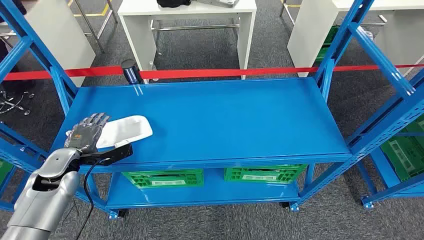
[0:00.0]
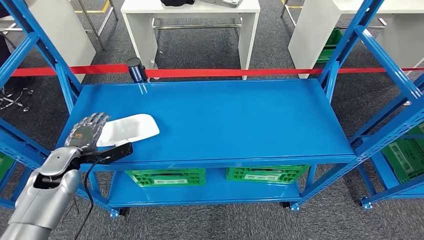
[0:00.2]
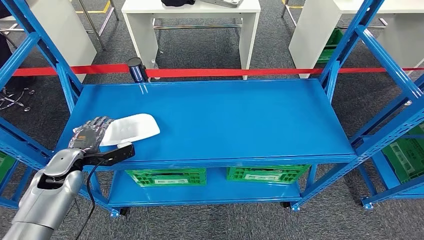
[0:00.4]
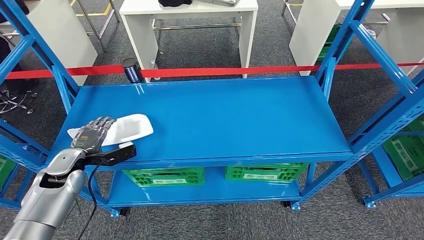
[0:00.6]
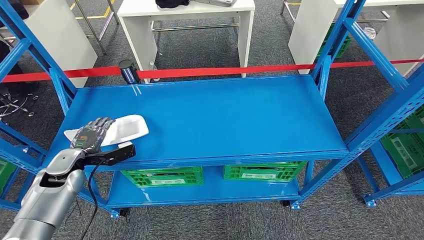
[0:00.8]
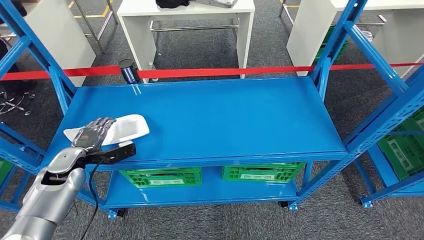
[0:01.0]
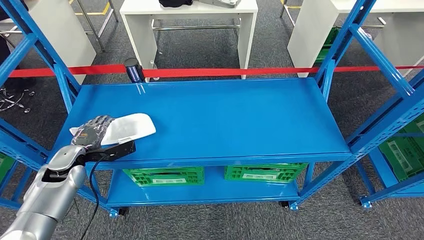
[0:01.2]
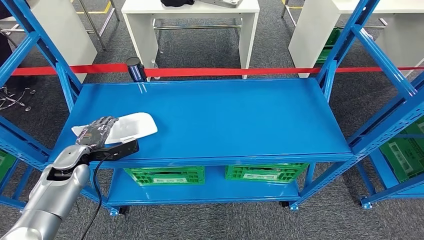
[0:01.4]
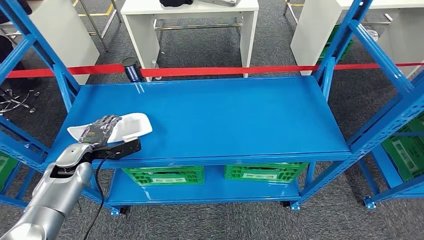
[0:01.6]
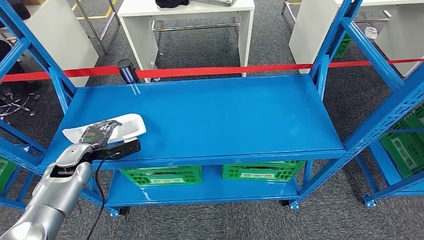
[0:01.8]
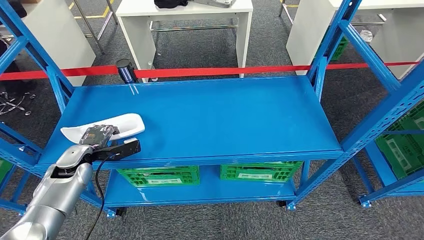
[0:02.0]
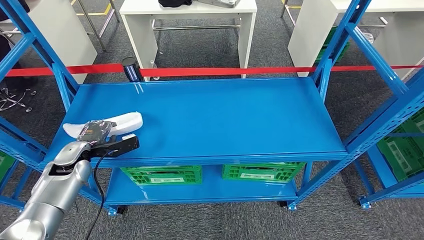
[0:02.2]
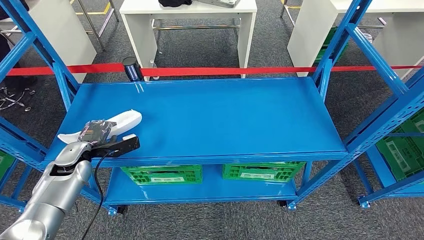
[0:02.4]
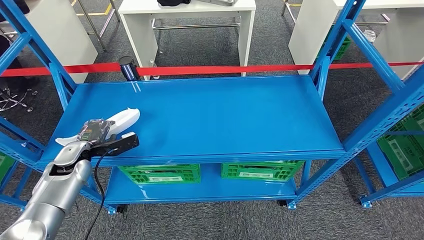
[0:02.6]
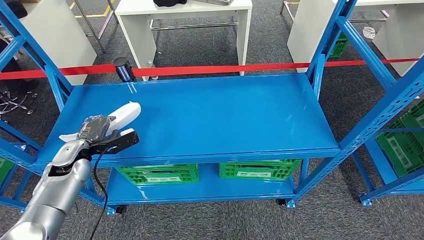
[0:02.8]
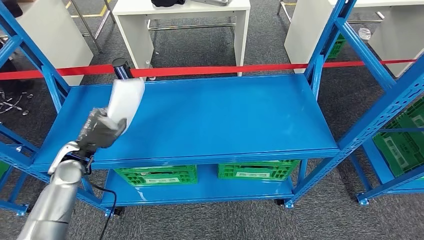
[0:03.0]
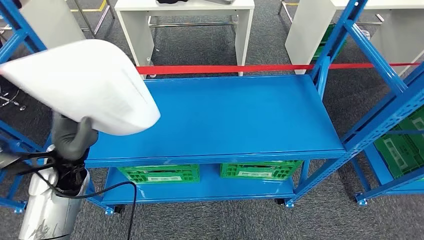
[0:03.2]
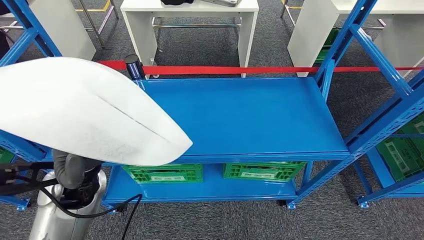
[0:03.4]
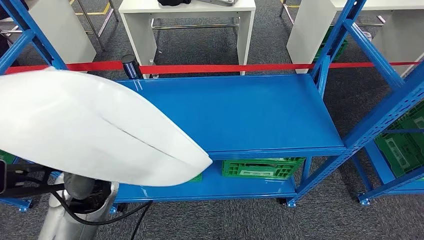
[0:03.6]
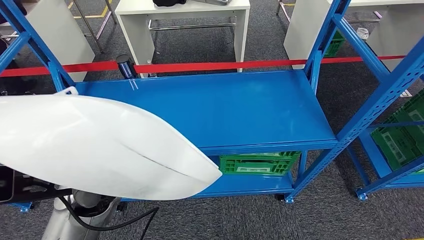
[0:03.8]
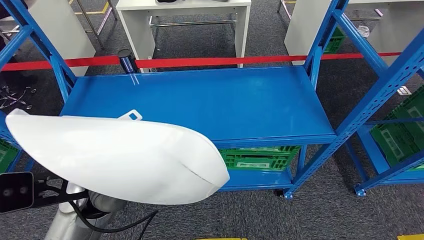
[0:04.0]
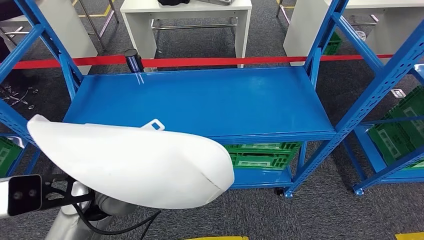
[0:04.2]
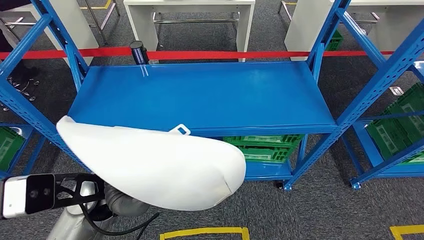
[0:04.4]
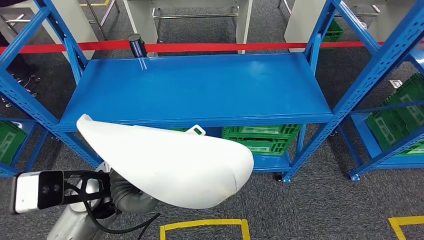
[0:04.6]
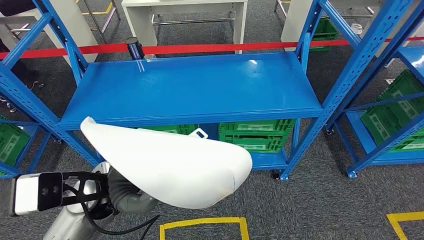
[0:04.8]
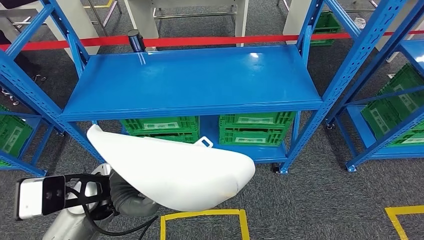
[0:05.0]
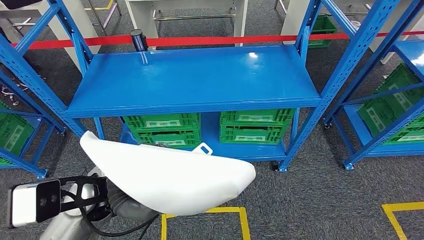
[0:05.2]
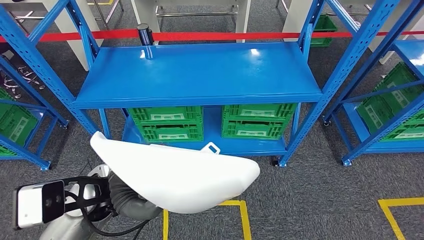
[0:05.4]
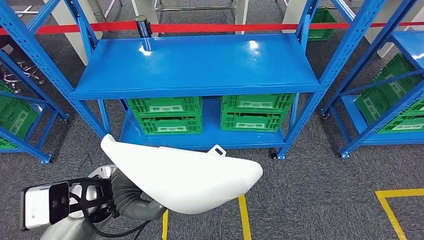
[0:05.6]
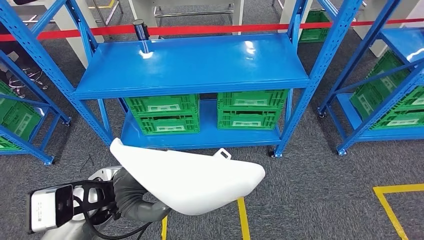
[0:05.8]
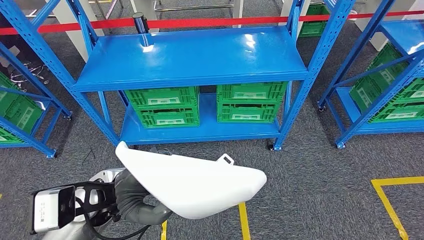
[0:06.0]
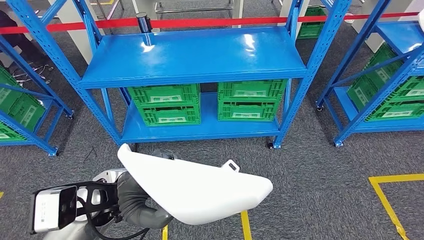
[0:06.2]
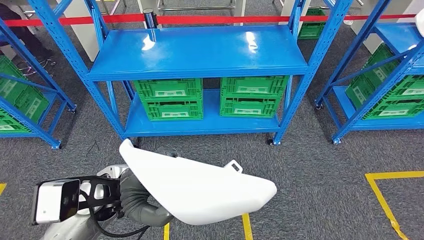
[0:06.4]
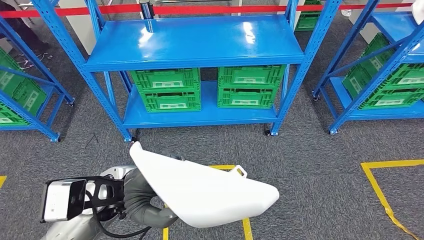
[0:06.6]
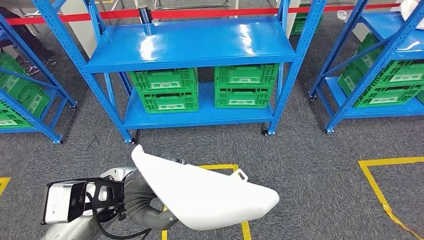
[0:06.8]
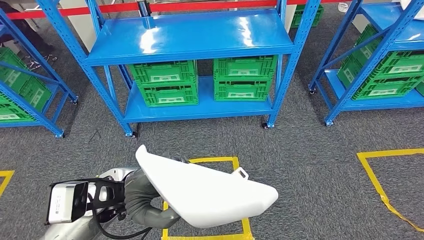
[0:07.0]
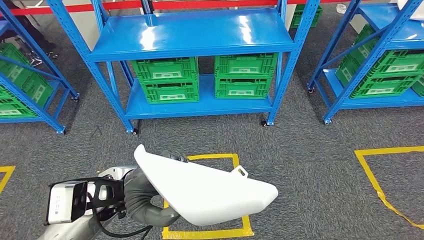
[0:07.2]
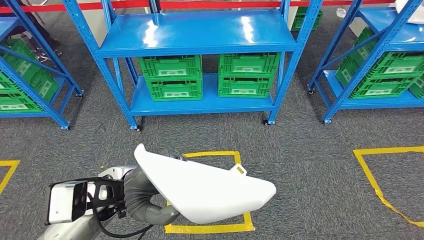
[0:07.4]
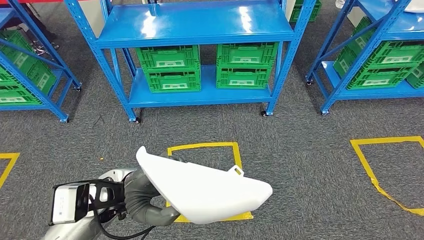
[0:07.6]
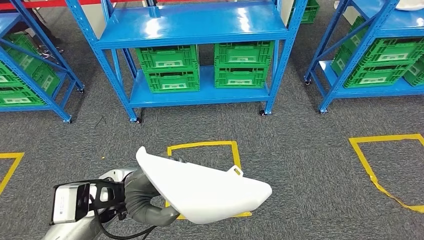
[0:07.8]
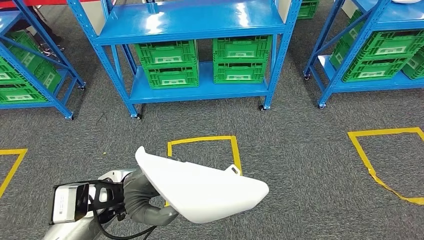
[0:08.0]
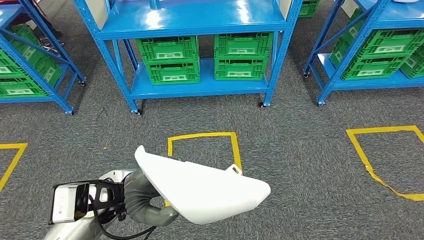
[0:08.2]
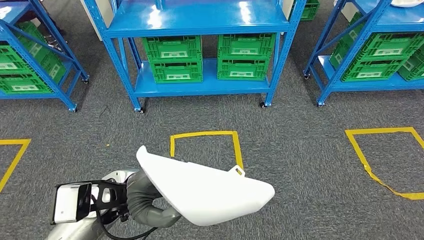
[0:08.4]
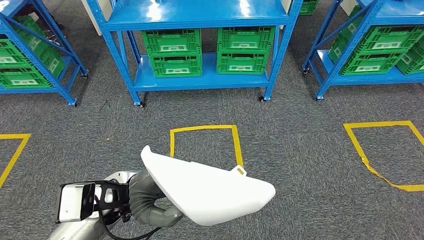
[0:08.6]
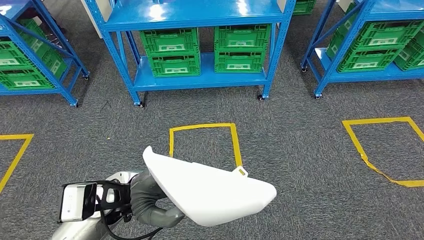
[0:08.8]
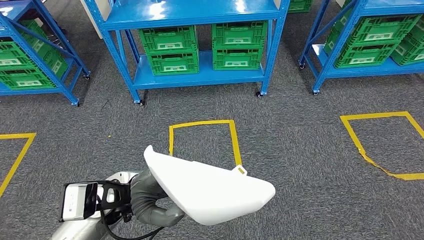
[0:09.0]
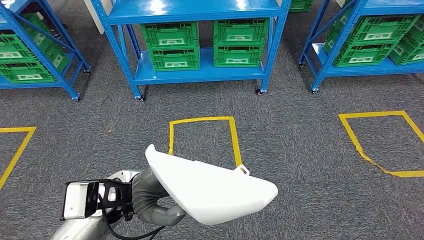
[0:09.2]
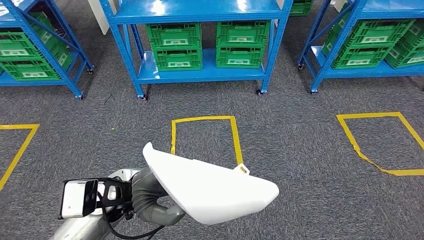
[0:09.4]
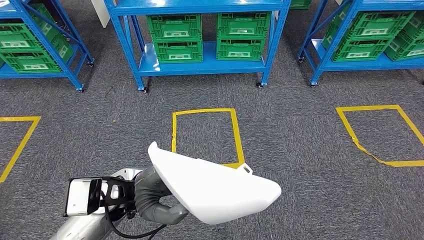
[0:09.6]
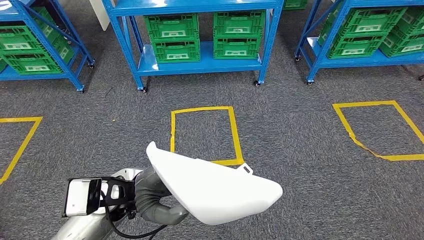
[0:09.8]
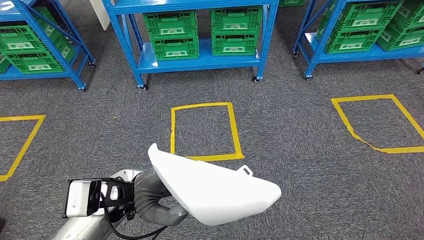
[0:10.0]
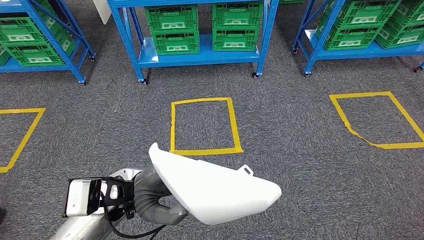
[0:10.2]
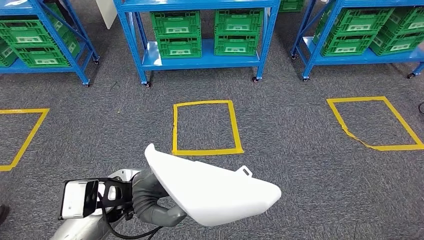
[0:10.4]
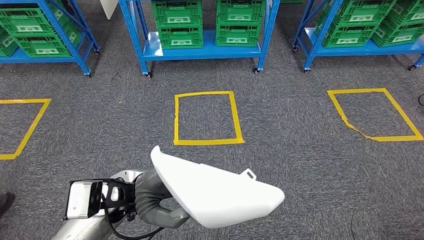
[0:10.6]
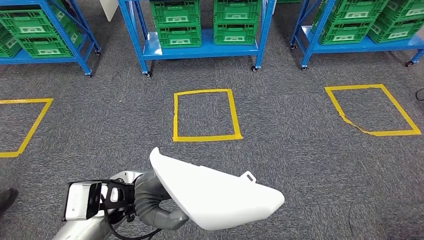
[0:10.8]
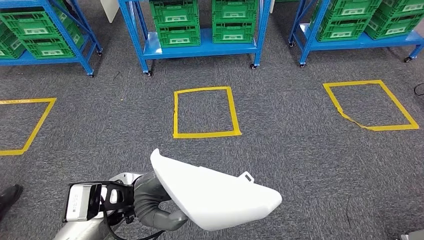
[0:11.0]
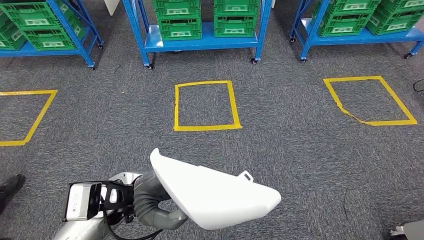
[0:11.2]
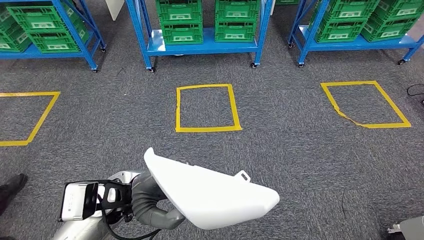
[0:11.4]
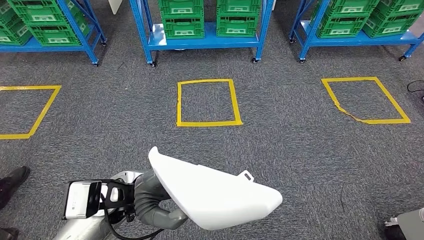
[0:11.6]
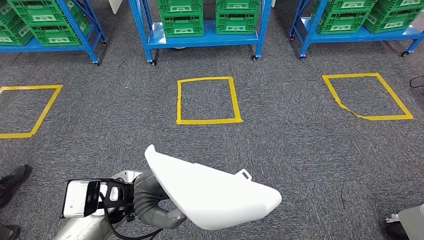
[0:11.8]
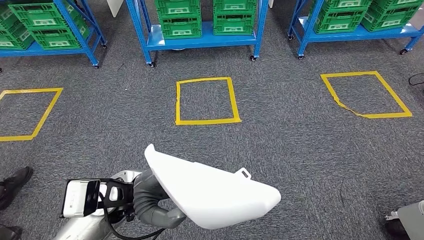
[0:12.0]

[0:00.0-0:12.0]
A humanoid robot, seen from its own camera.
Step, 0:00.0 to 0:05.0: Pick up the small component from the shelf.

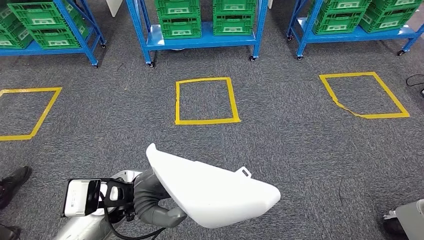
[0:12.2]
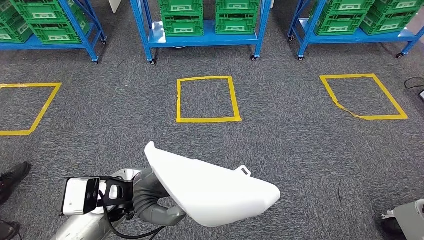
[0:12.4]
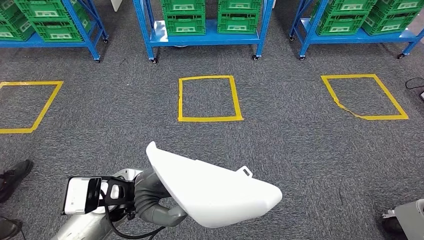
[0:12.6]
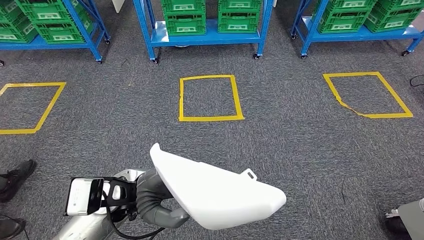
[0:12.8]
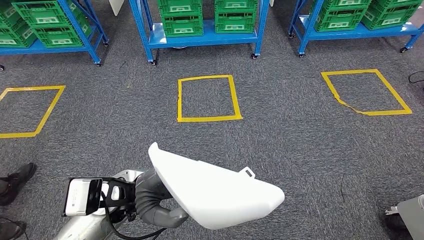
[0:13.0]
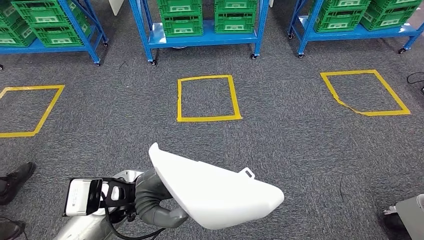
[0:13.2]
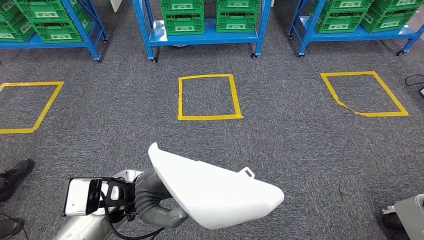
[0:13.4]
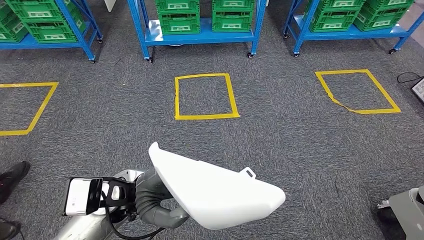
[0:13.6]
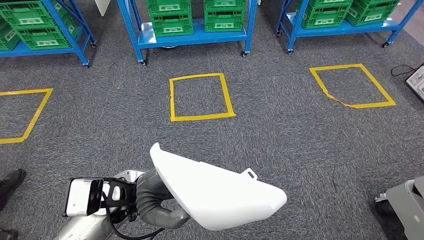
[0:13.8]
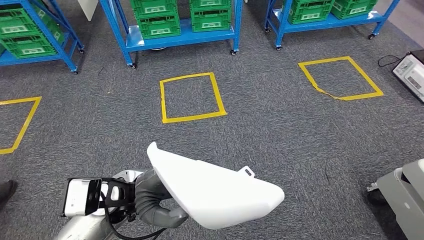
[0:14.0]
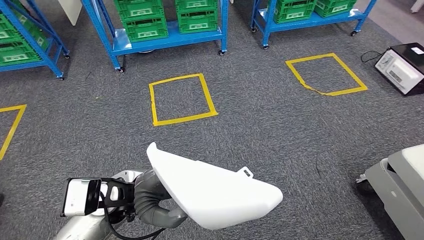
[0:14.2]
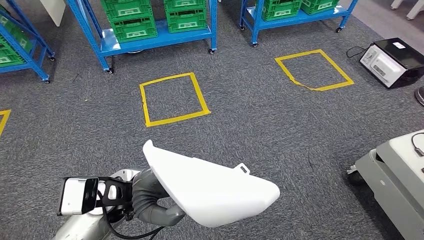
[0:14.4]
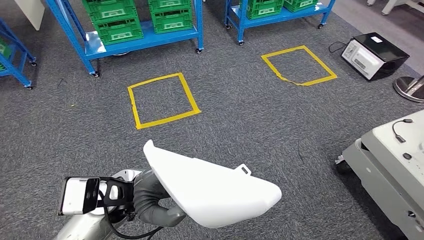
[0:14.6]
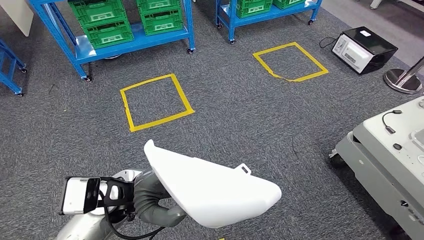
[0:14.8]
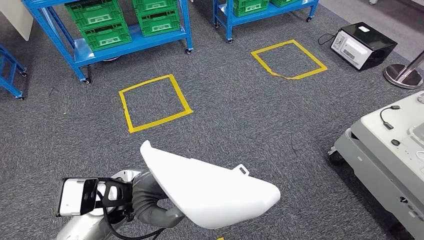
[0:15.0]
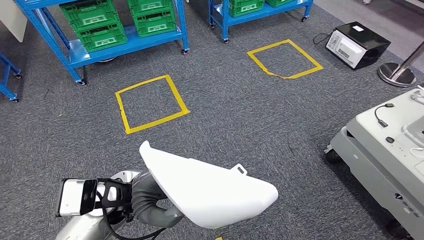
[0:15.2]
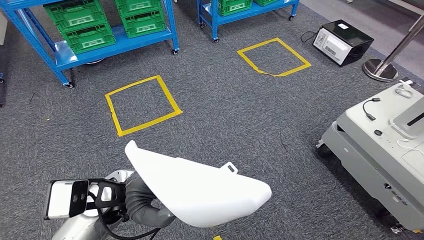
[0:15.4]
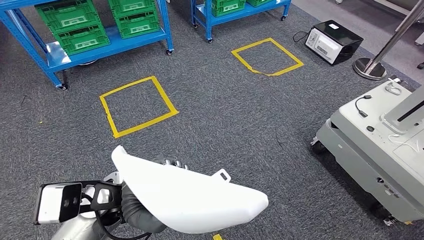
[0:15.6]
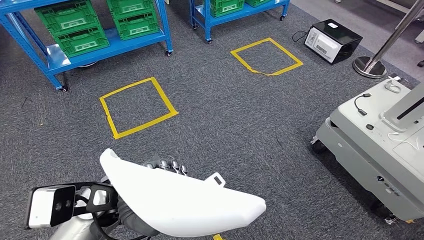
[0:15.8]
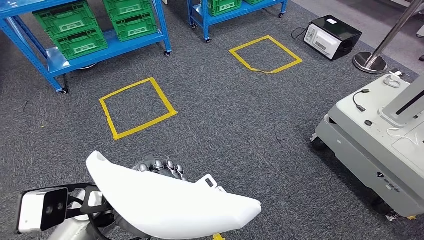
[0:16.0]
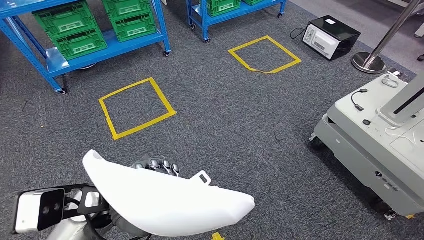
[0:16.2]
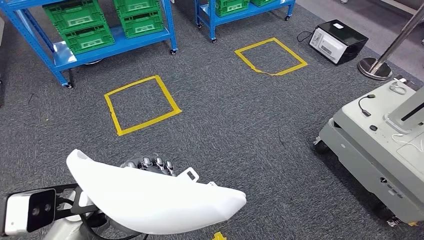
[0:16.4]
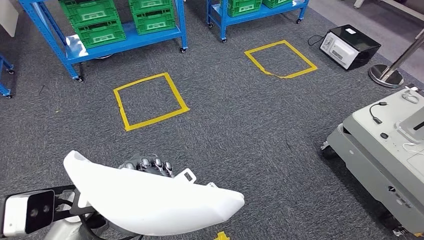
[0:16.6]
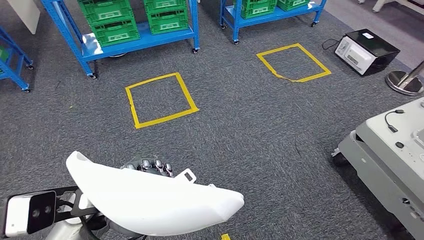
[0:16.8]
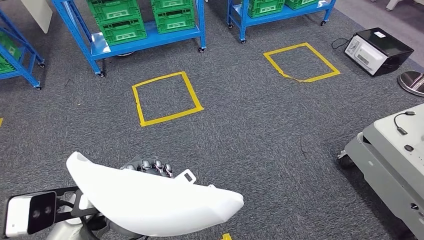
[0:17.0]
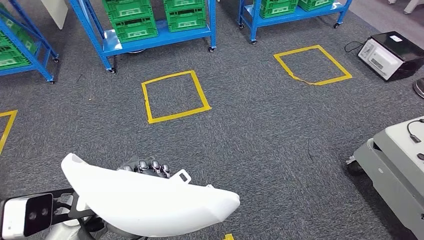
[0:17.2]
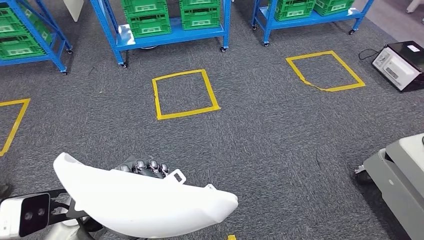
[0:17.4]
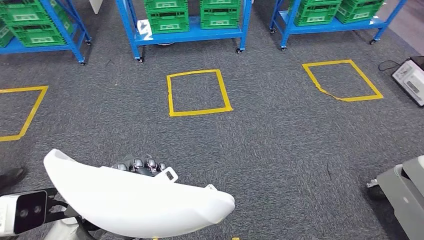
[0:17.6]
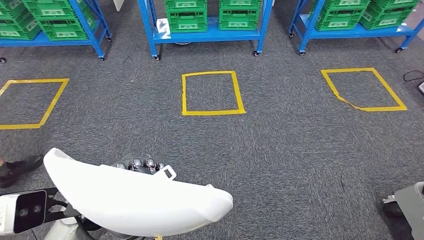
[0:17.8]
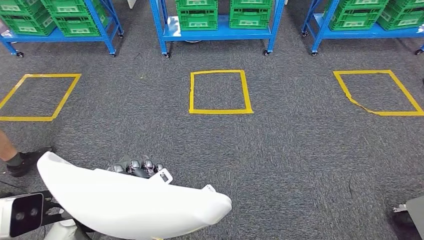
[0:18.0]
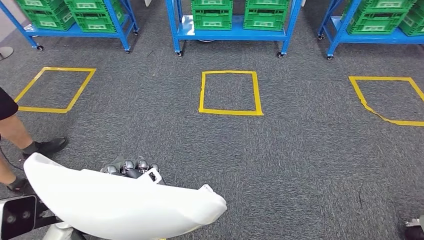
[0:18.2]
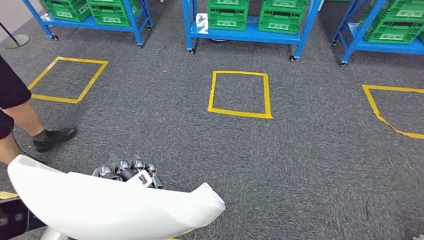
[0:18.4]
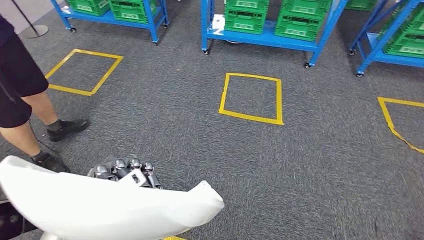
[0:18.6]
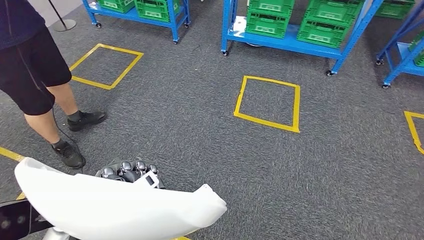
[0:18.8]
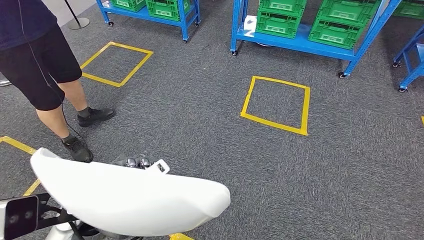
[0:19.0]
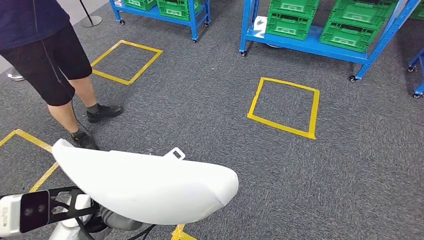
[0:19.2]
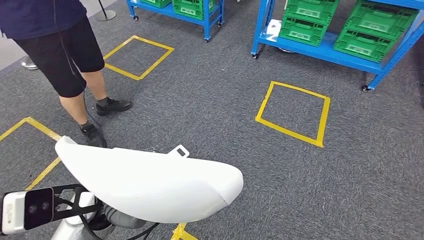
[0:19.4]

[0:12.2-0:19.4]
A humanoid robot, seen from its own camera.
0:12.2 to 0:13.6: The two hands keep their place.
